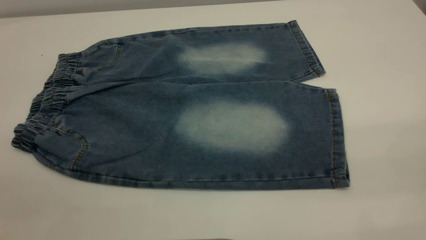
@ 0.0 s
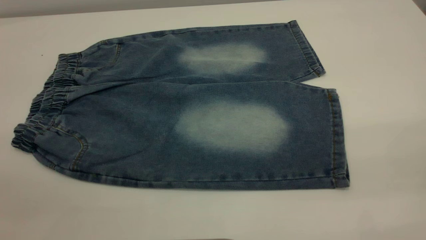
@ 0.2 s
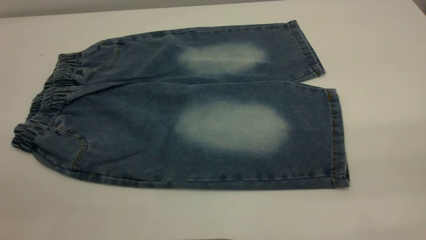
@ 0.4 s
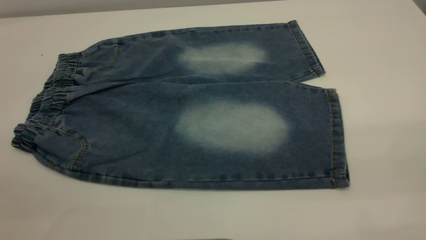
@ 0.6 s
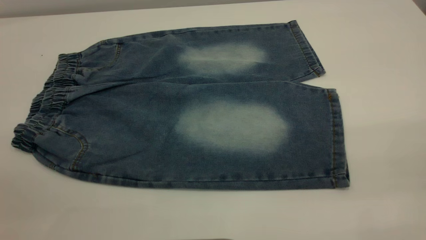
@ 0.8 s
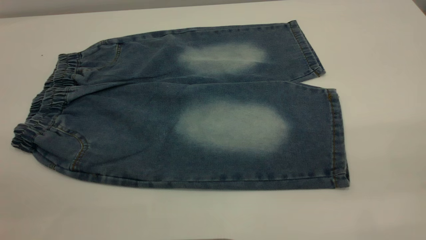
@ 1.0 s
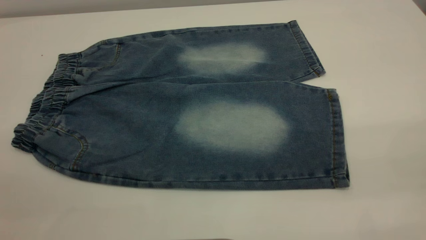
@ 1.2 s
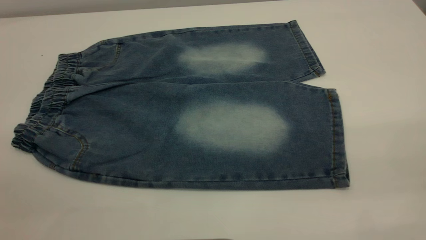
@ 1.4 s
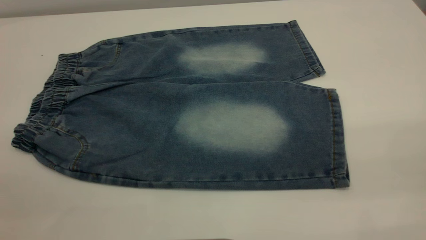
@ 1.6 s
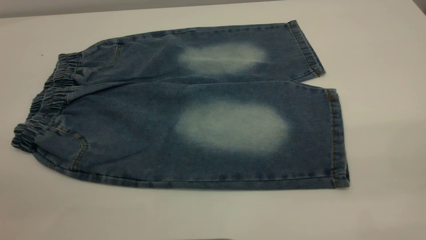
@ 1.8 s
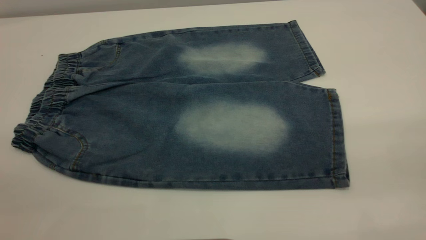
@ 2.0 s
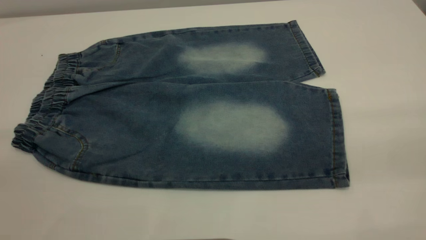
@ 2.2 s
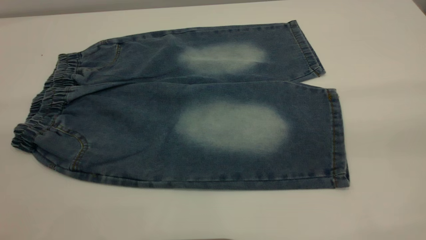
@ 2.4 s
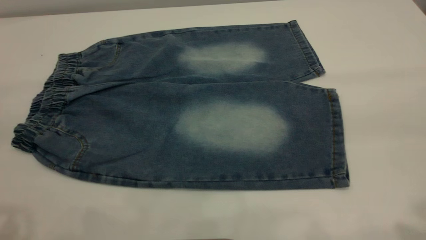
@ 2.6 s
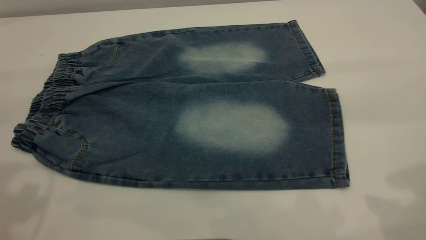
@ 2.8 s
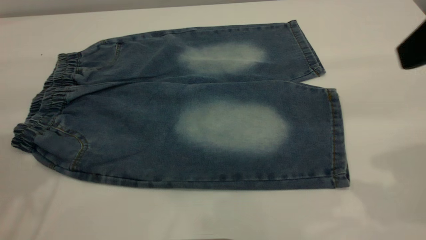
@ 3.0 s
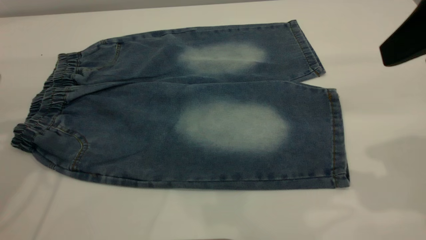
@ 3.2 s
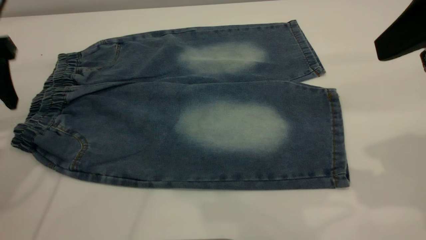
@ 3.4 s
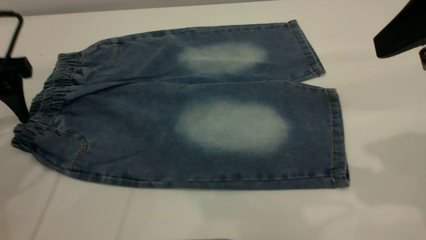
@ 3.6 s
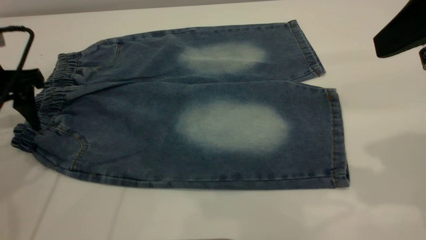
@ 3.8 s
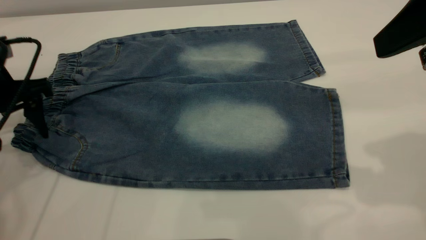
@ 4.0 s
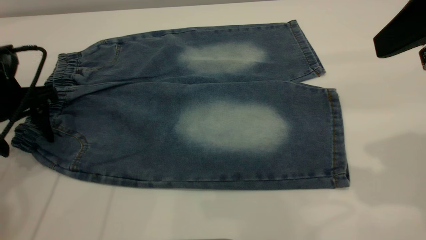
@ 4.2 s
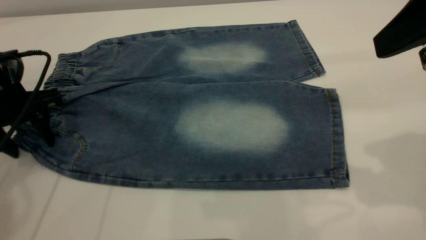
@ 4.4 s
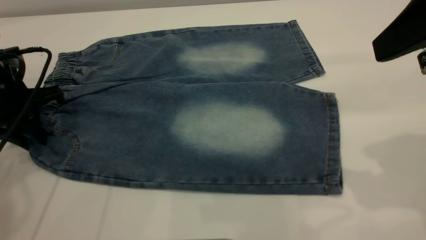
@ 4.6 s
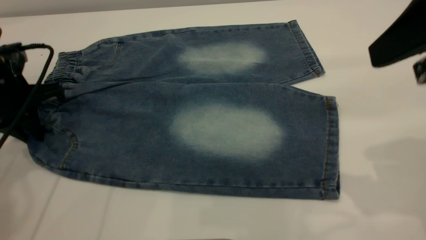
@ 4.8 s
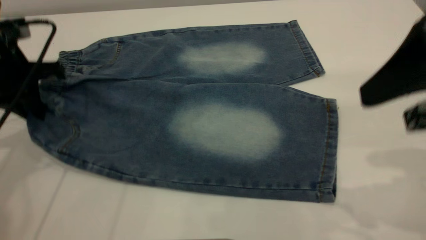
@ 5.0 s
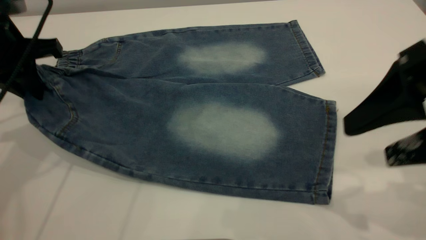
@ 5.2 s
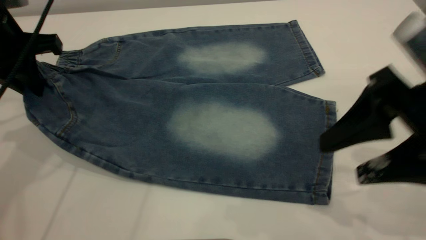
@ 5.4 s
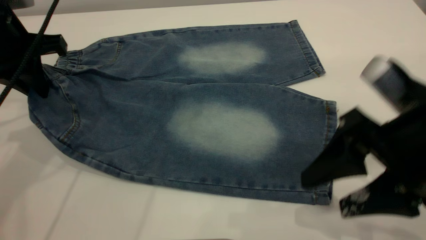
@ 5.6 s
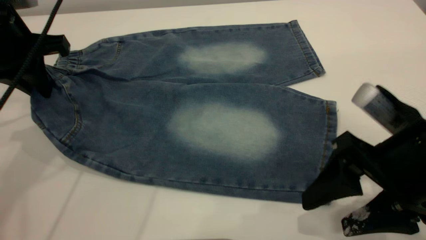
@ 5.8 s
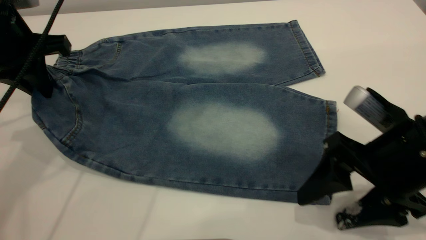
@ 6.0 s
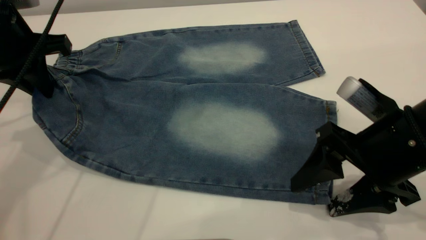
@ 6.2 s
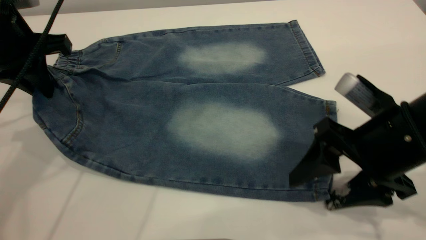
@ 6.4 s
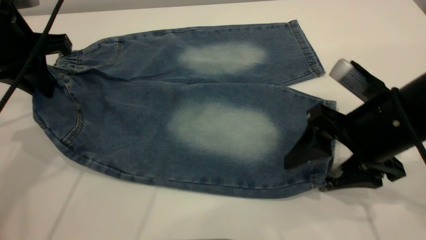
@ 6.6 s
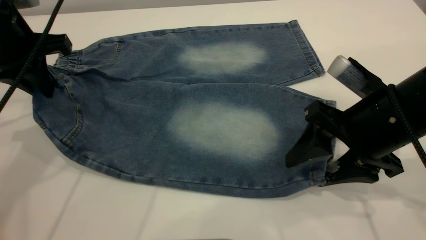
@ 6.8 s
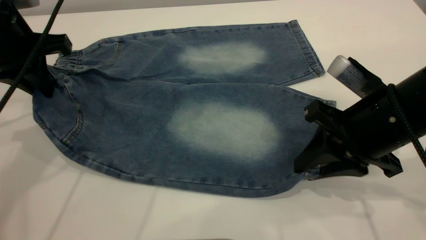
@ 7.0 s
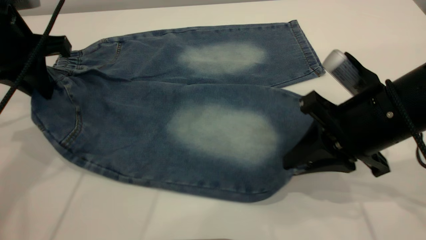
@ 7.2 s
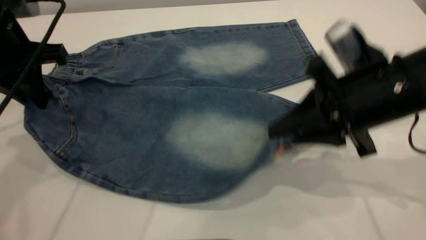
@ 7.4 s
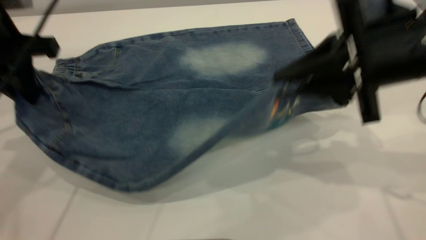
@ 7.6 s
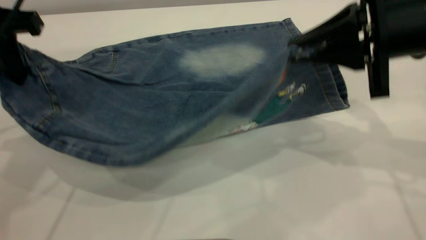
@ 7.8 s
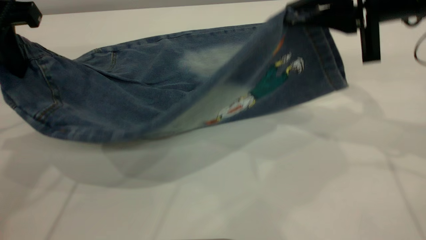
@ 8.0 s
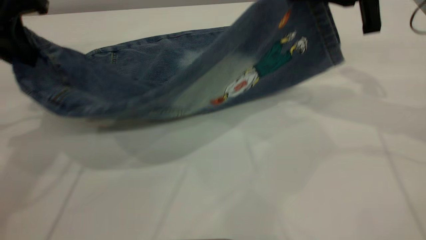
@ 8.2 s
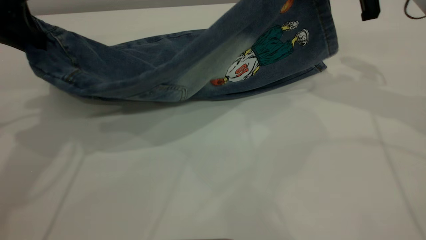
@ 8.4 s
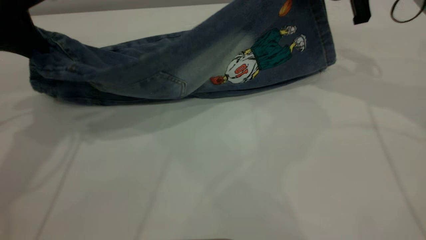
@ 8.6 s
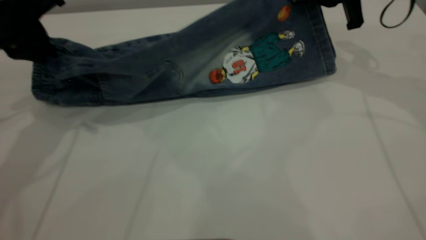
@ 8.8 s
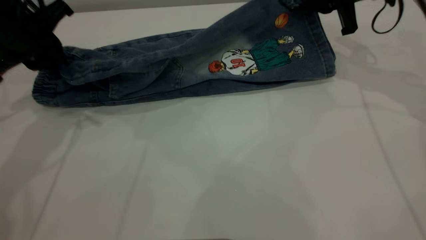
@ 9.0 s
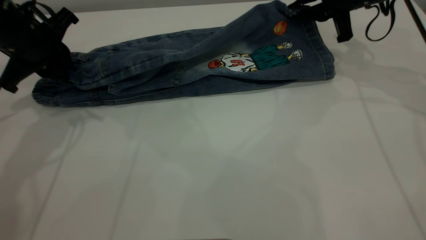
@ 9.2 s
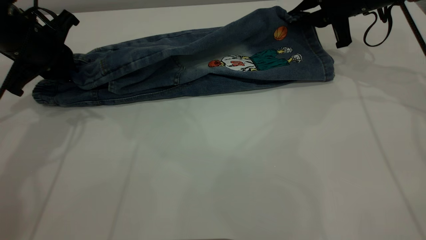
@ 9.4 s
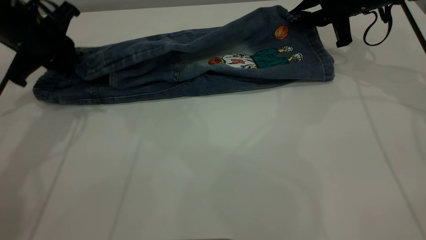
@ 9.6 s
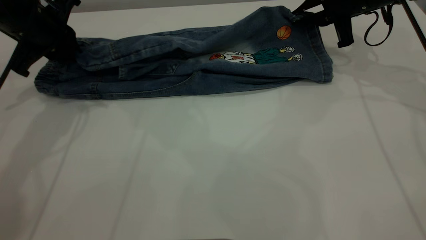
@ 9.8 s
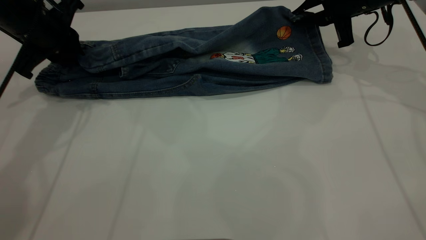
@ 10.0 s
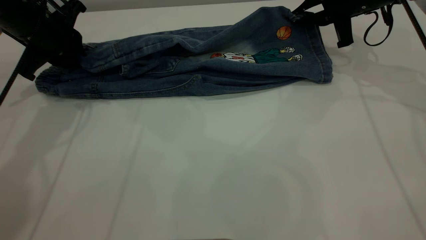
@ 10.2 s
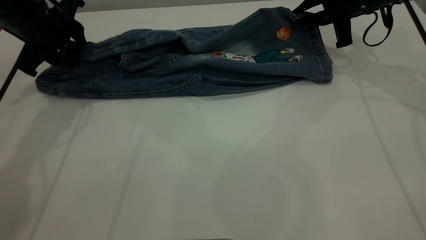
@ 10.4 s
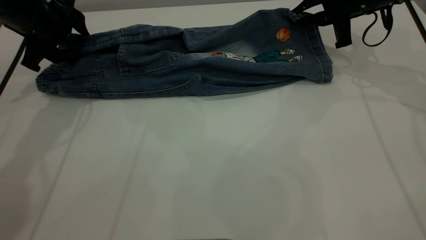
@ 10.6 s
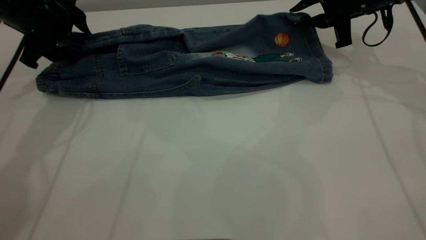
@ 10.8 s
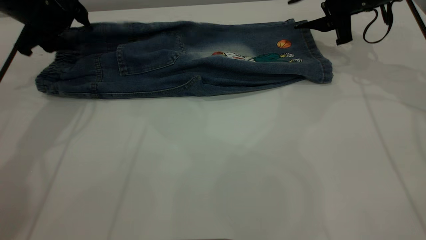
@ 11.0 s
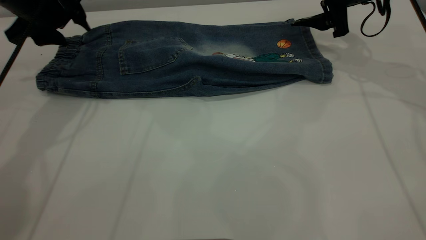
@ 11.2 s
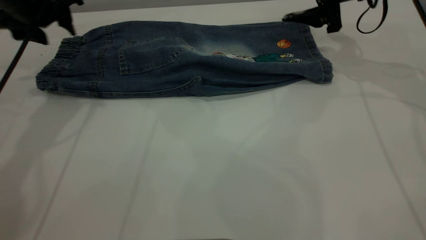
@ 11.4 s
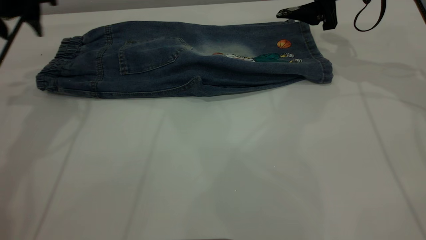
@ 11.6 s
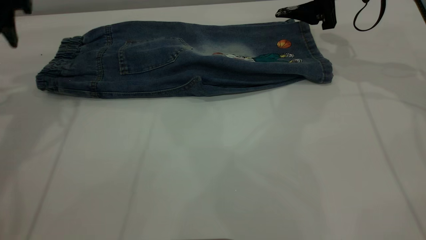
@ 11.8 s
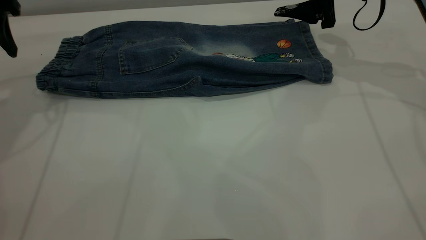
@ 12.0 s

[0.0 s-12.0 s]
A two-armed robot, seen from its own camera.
Step, 0.0 to 11.8 s: Fold the bottom of the pants upward.
0.0 to 1.6 s: Both grippers stay put.
1.6 to 3.0 s: The right gripper travels forward by some 20 cm.
3.0 to 4.4 s: The left gripper heads downward, covering some 15 cm.
4.4 to 6.0 s: The right gripper travels downward by approximately 15 cm. The left gripper is displaced upward by approximately 5 cm, and closes its fingers.
6.0 to 7.6 s: The right gripper heads upward and forward, covering some 10 cm, and closes.
7.6 to 9.0 s: The right gripper travels forward by roughly 20 cm. The left gripper goes approximately 5 cm forward.
9.0 to 10.4 s: The left gripper opens its fingers.
10.4 to 12.0 s: The right gripper opens, while the left gripper shifts some 10 cm to the left and upward.

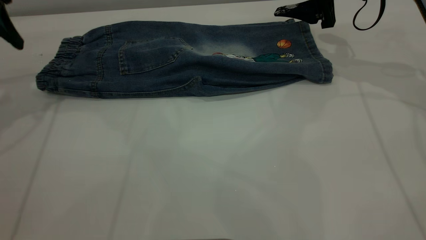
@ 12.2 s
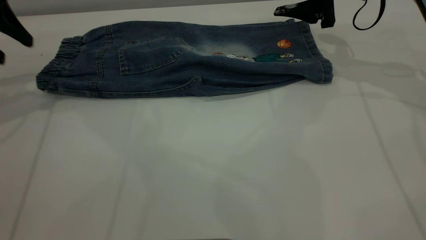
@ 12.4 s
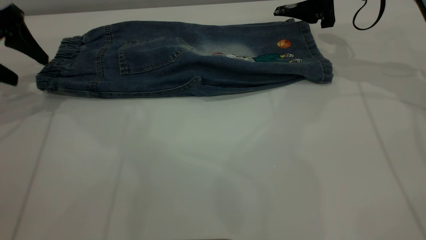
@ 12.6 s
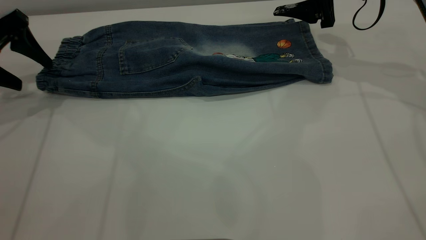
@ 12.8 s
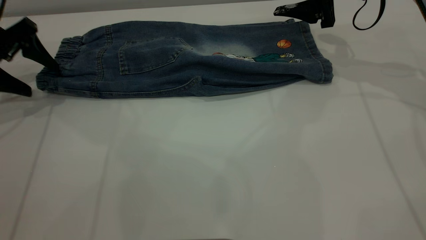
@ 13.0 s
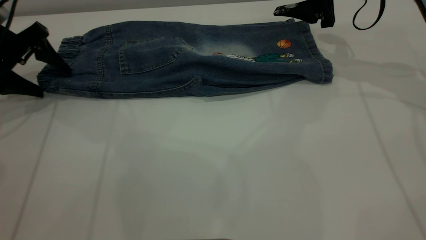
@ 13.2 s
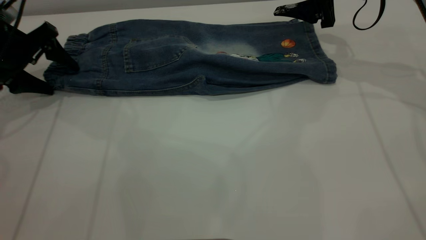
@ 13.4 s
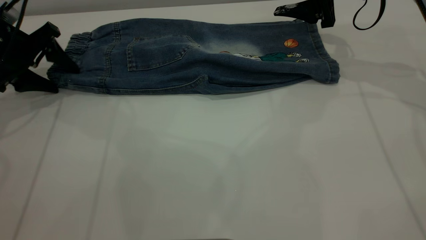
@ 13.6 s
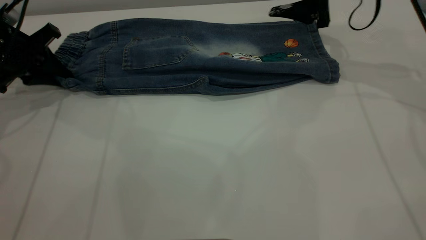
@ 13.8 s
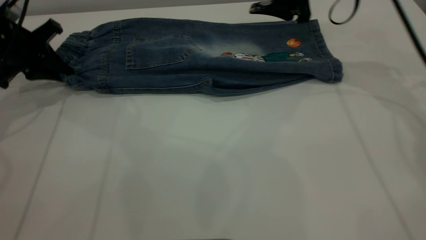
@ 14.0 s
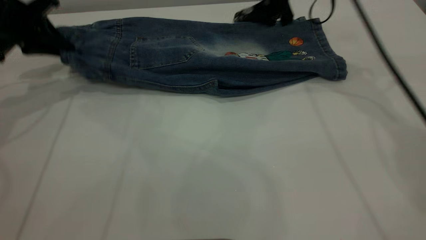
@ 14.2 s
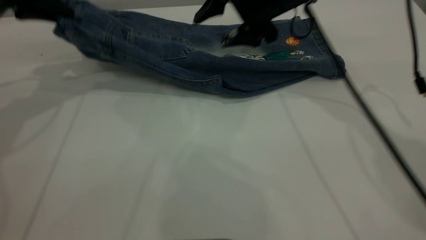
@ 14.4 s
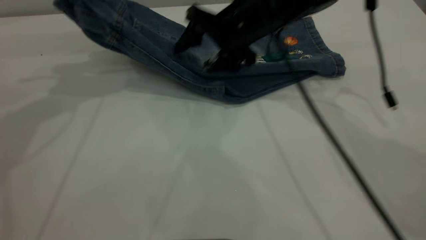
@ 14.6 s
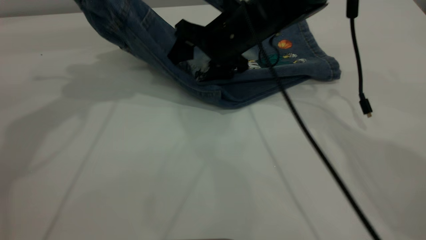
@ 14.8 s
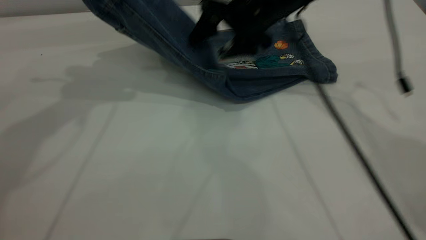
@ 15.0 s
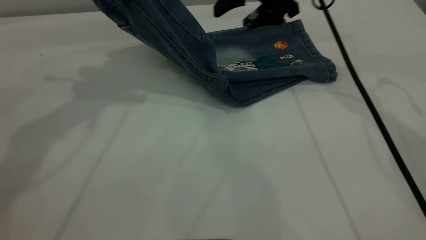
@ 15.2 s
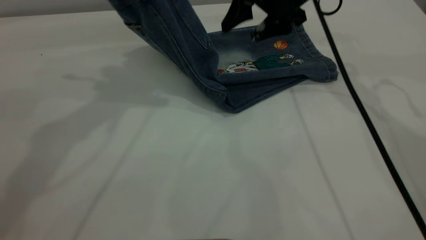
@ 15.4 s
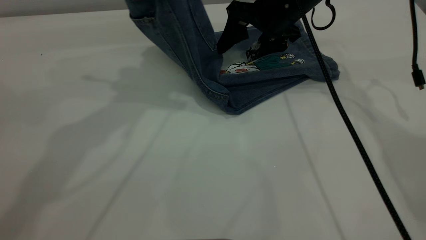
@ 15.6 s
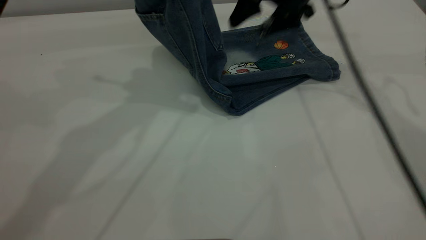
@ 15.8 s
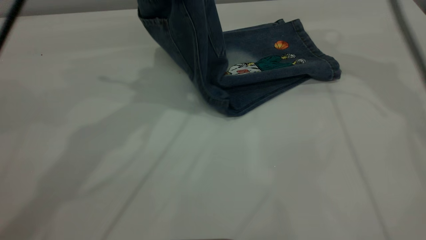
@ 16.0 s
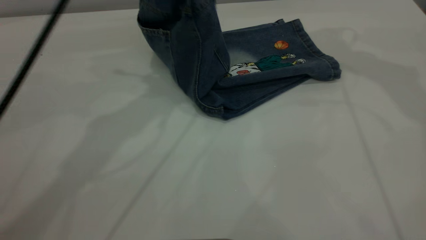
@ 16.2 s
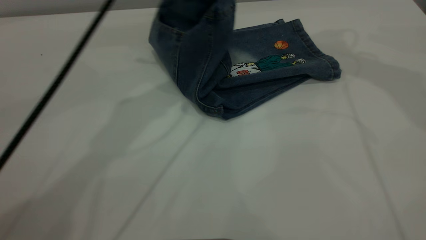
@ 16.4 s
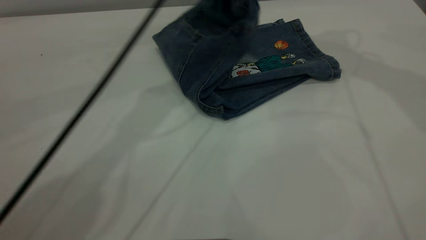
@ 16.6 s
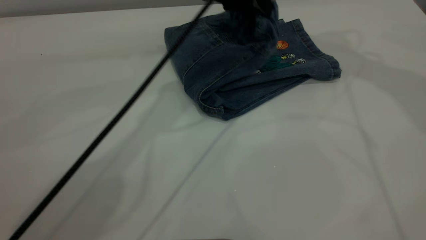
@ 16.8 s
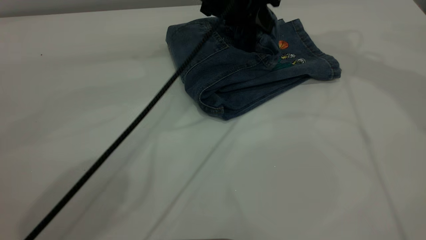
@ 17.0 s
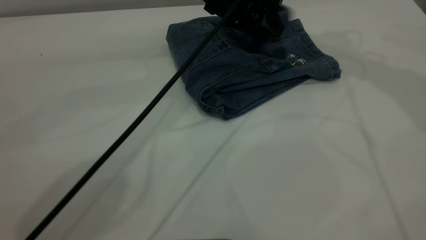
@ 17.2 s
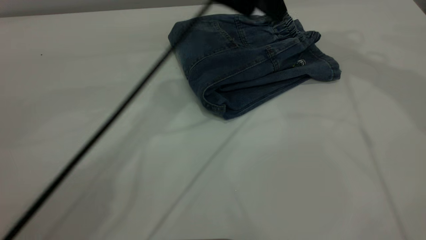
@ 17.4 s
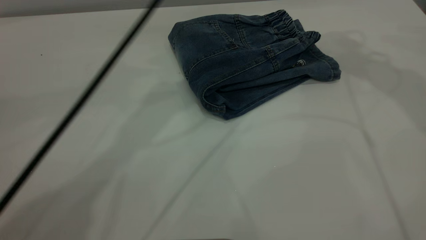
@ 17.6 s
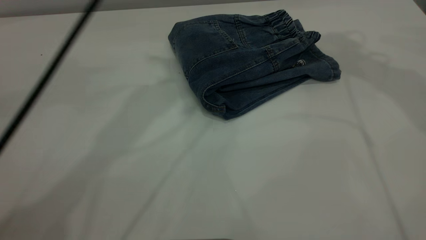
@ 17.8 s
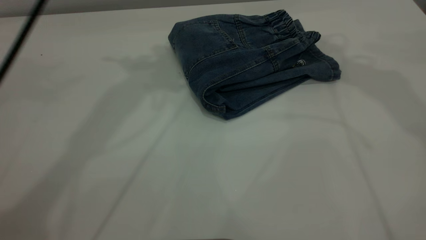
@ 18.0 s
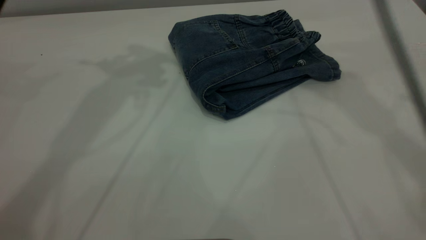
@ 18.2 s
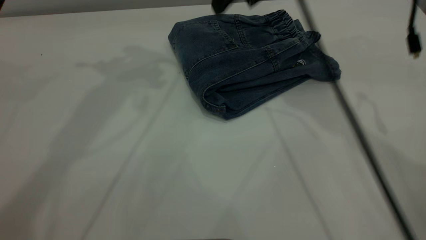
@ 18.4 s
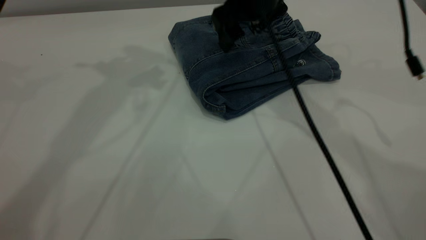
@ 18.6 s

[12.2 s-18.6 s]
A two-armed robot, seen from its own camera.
Step, 12.2 to 17.6 s: Fold the pants from left to right.
12.2 to 13.8 s: The left gripper heads downward, covering some 10 cm, and closes its fingers.
13.8 to 15.4 s: The left gripper travels upward and to the right by some 25 cm. The right gripper shifts roughly 10 cm to the left.
15.4 to 17.0 s: The right gripper moves upward and to the right, approximately 20 cm, while the left gripper travels to the right, downward and forward by roughly 25 cm.
17.0 to 18.6 s: The left gripper heads upward and to the left, covering roughly 25 cm, and opens; the right gripper heads downward and to the left, covering roughly 20 cm.
